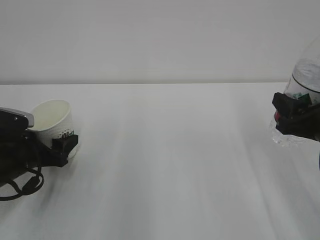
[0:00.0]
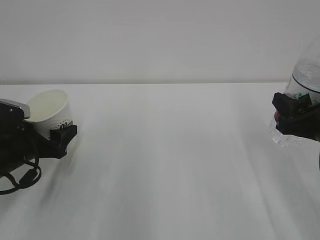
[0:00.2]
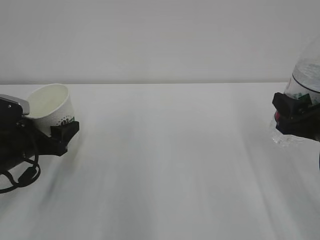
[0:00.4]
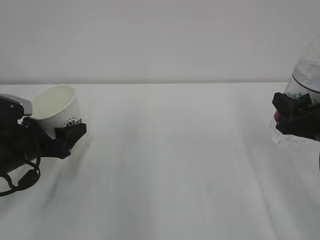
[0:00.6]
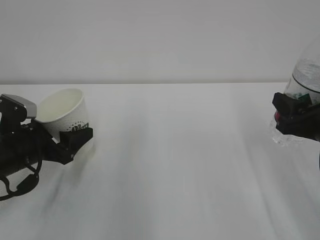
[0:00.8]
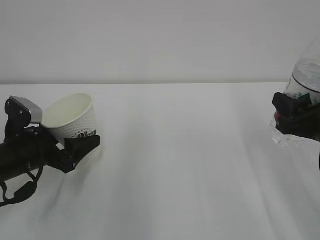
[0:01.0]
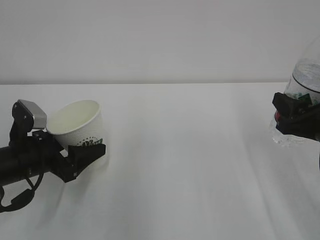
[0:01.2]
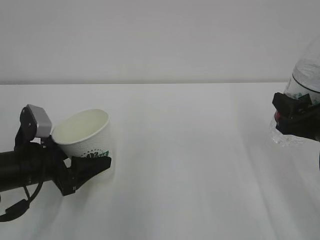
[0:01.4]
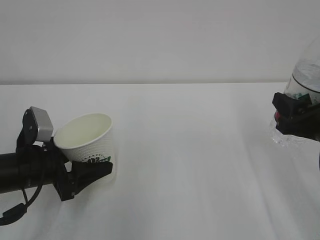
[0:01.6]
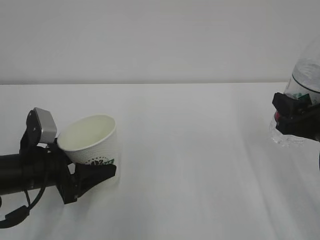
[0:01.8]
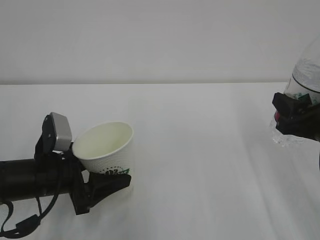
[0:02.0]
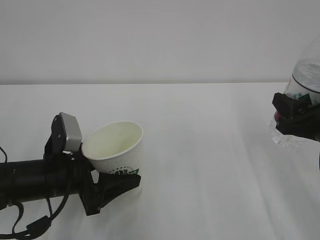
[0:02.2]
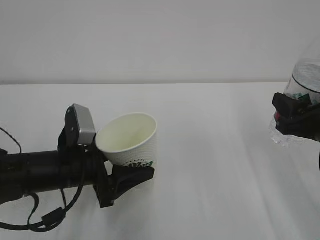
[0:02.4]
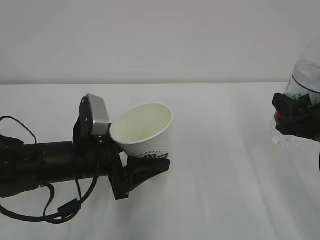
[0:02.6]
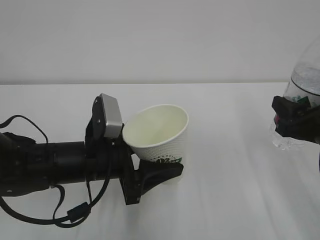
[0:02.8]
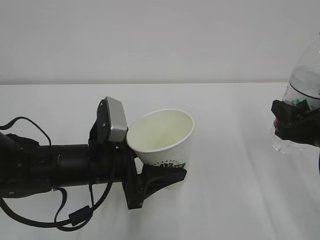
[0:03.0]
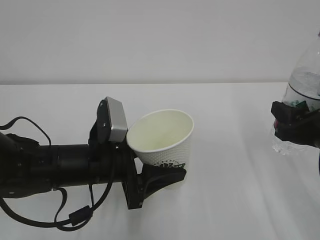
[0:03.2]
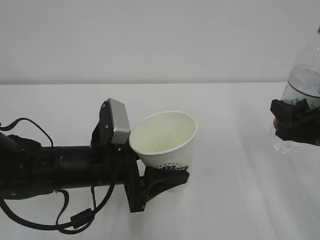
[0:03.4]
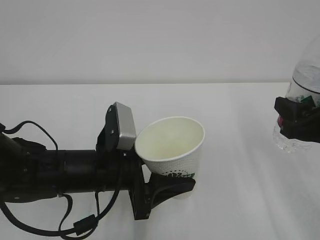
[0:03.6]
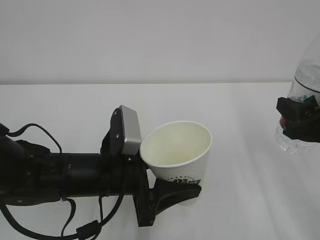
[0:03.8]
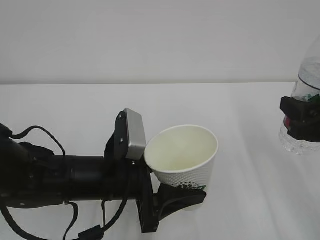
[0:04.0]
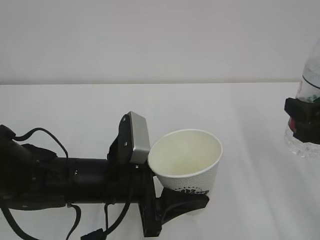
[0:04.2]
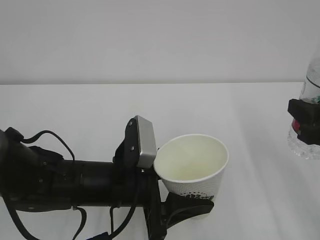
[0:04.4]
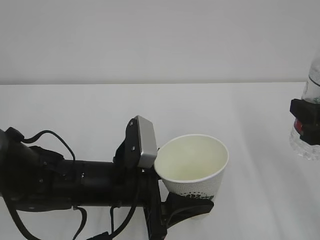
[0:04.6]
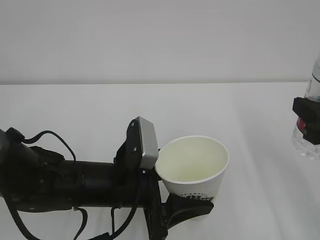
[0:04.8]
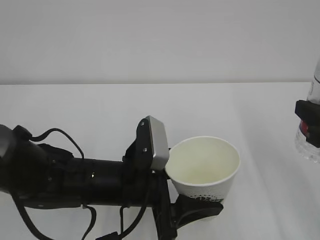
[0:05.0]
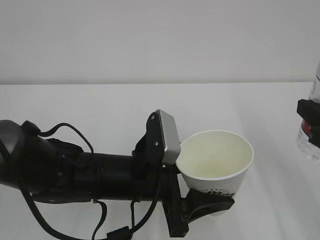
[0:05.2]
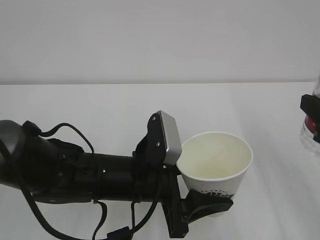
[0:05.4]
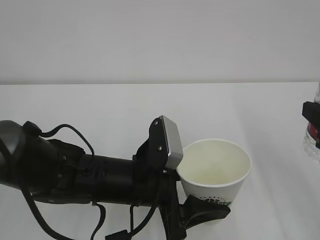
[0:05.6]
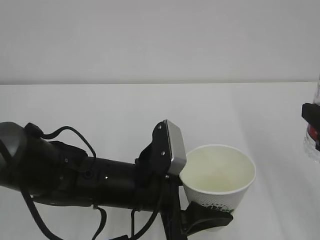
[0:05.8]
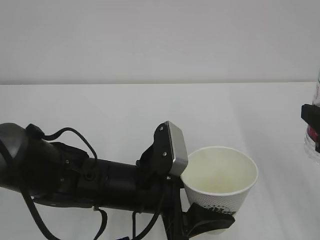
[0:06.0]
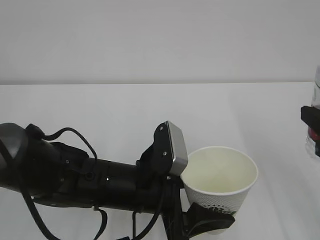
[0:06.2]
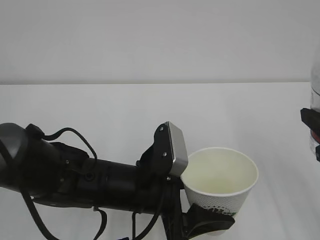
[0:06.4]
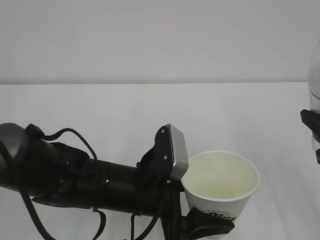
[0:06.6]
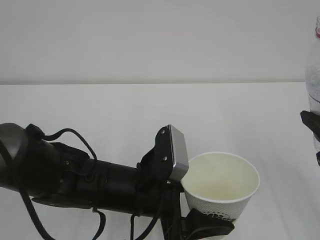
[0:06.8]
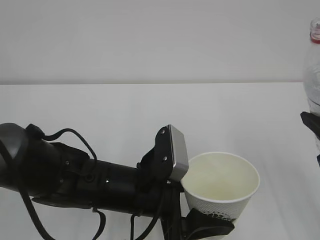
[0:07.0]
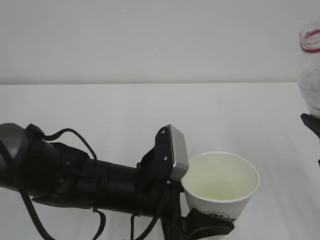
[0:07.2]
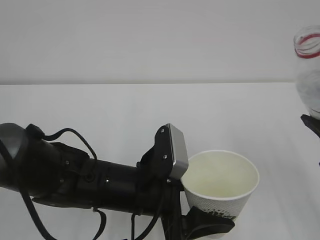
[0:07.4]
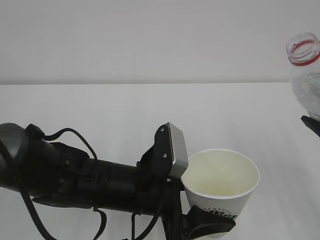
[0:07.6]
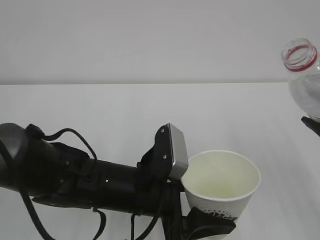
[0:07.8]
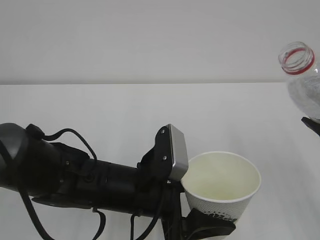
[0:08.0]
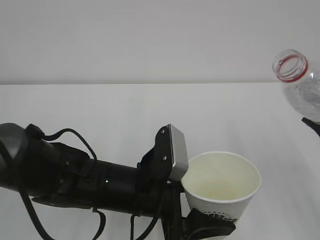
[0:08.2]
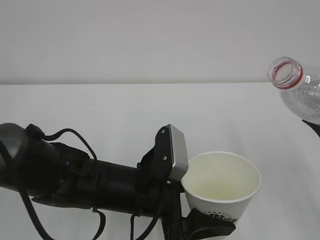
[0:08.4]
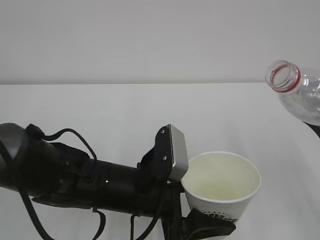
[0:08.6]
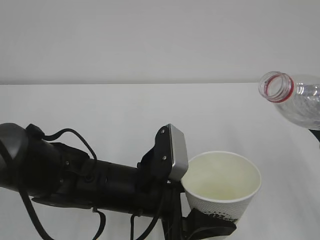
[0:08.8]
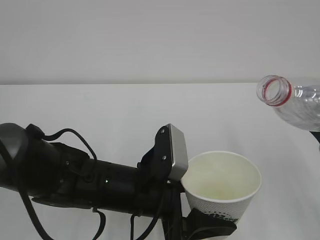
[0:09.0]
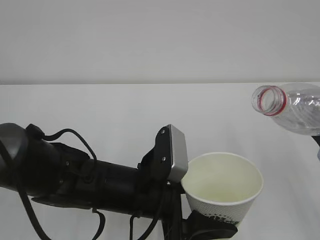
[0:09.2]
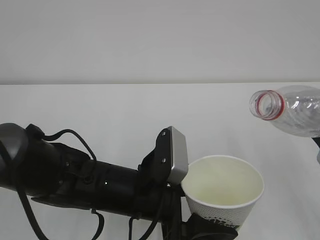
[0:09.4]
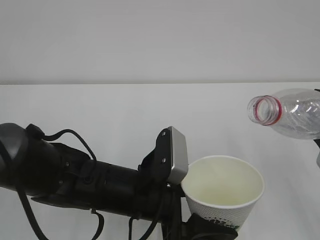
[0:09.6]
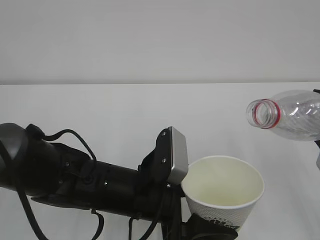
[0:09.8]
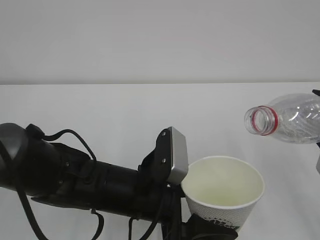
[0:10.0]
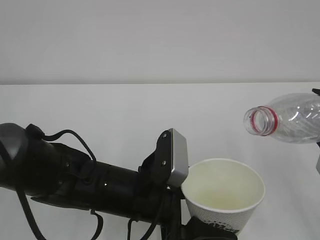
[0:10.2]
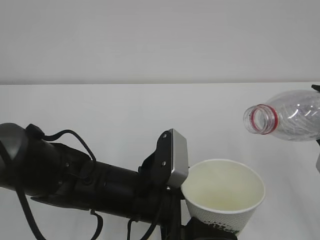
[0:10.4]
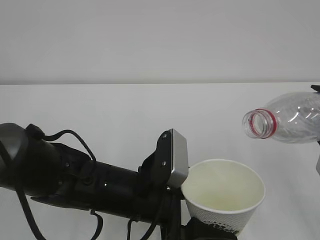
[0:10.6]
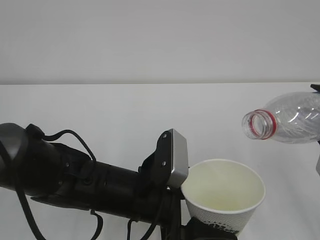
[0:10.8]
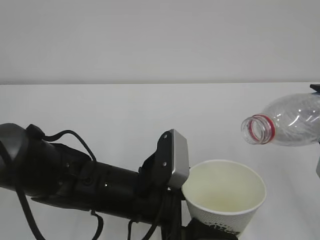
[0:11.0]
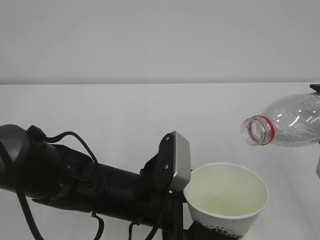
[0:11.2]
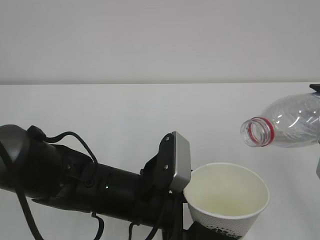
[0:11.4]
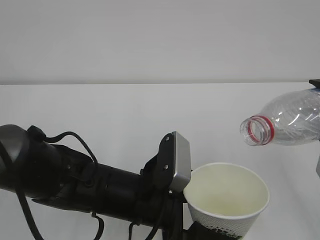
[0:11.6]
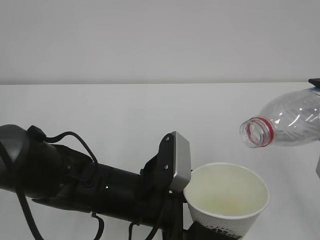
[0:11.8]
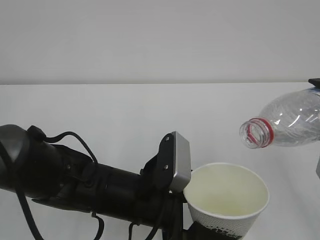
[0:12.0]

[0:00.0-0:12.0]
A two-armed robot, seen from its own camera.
0:00.0 to 0:01.6: The left gripper changes place by some 5 cm.
0:01.6 to 0:03.0: The left gripper moves to the right, approximately 10 cm.
0:03.0 to 0:04.4: The right gripper ends up roughly 5 cm from where it was.
0:04.4 to 0:06.0: The grippers make only small movements.
0:09.0 to 0:10.4: The grippers move only a little.
0:10.4 to 0:12.0: The grippers stay close to where they were, moving slightly.

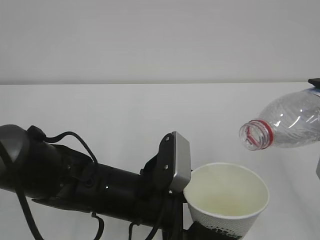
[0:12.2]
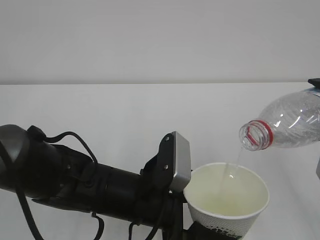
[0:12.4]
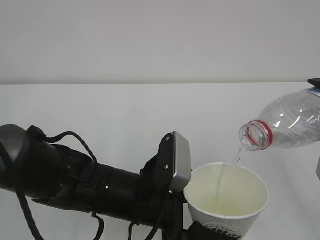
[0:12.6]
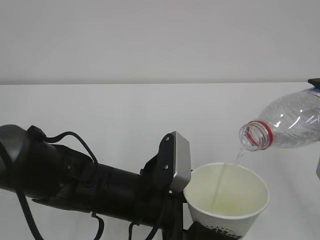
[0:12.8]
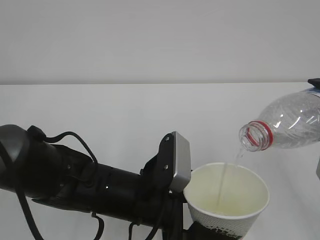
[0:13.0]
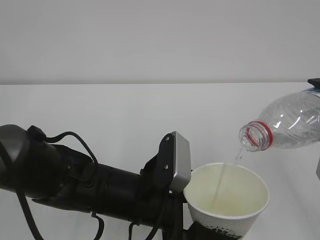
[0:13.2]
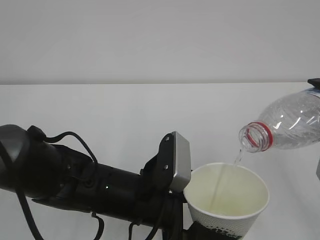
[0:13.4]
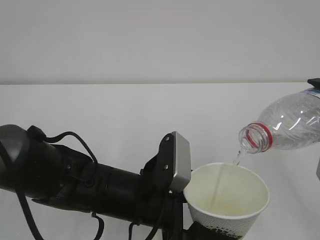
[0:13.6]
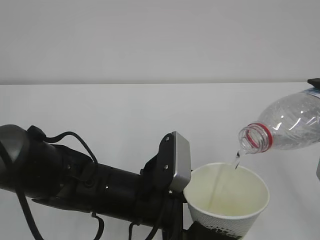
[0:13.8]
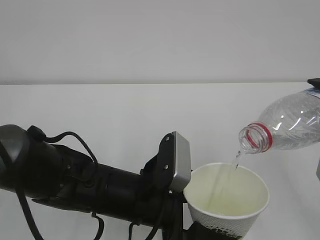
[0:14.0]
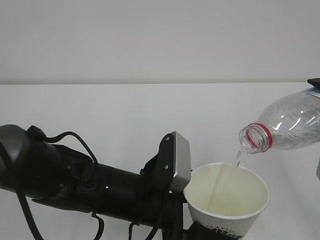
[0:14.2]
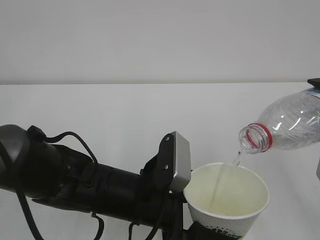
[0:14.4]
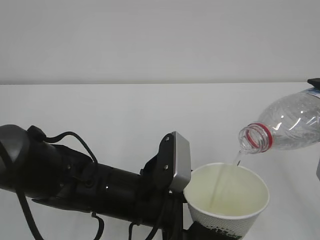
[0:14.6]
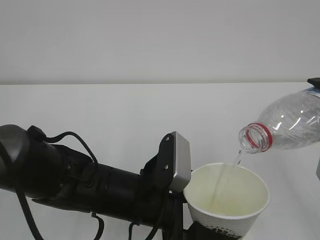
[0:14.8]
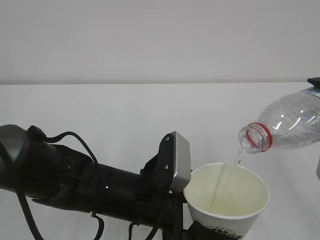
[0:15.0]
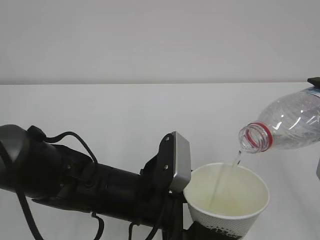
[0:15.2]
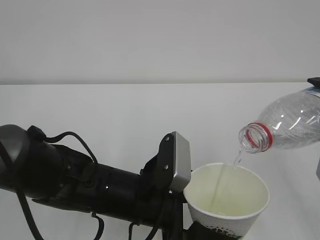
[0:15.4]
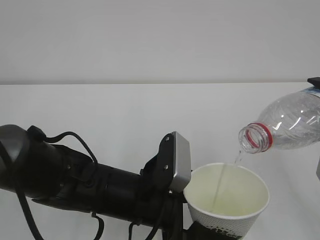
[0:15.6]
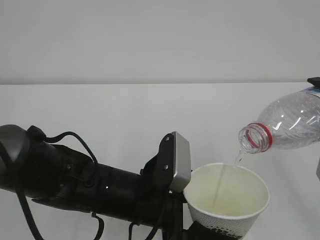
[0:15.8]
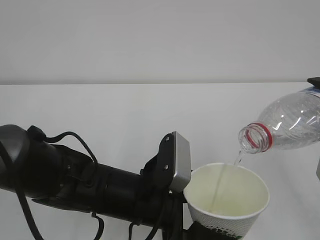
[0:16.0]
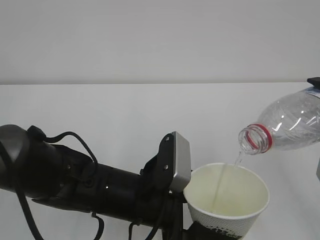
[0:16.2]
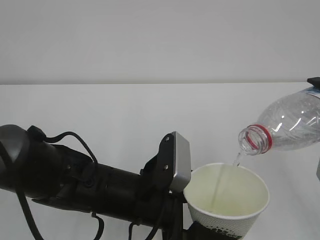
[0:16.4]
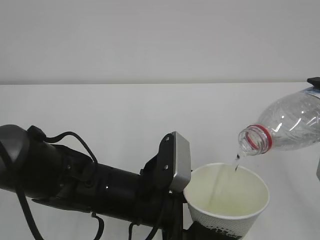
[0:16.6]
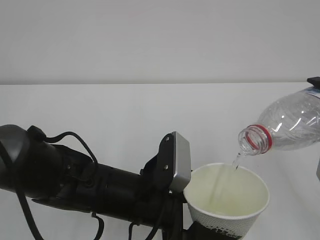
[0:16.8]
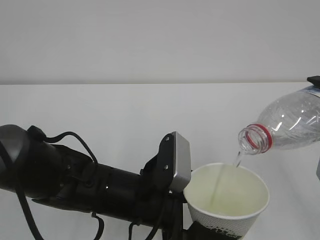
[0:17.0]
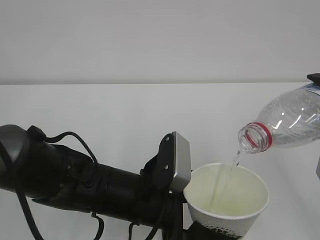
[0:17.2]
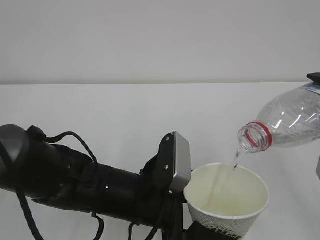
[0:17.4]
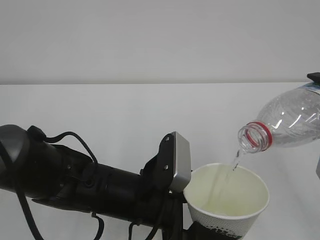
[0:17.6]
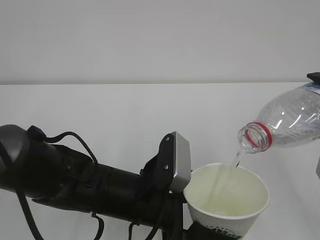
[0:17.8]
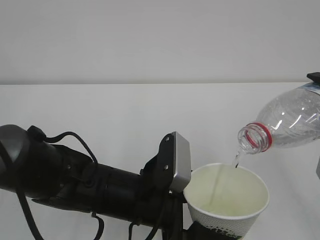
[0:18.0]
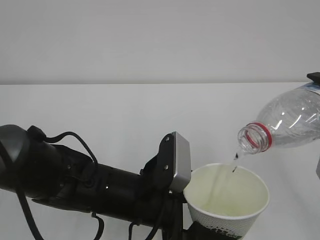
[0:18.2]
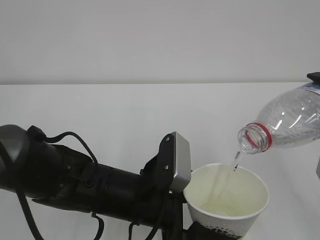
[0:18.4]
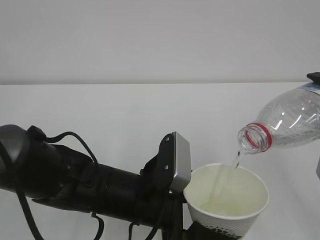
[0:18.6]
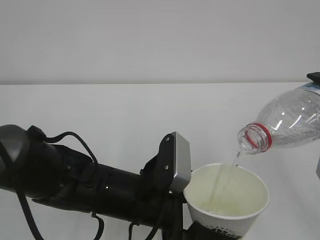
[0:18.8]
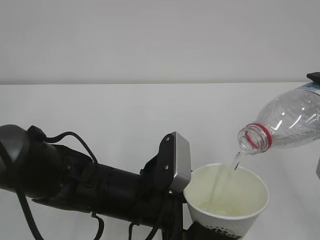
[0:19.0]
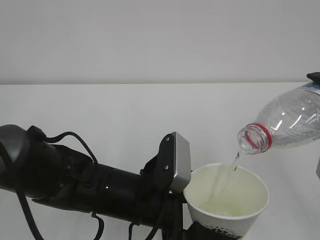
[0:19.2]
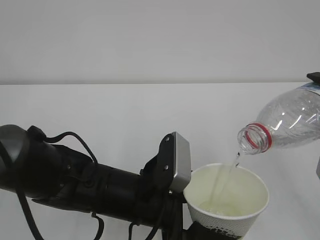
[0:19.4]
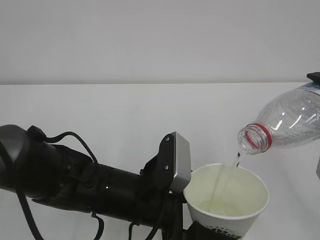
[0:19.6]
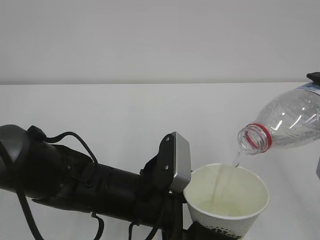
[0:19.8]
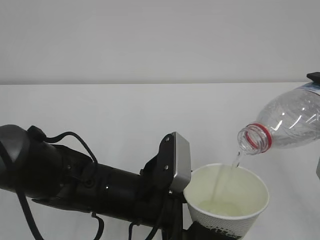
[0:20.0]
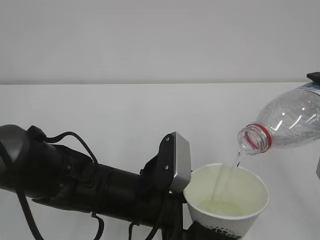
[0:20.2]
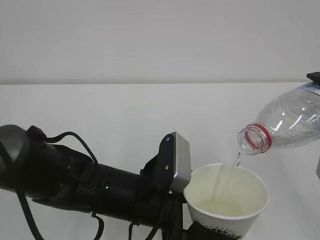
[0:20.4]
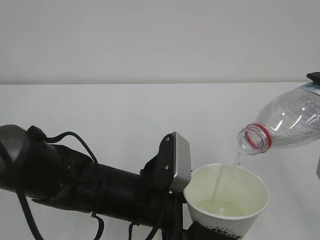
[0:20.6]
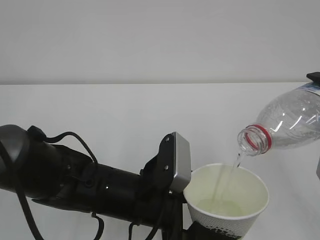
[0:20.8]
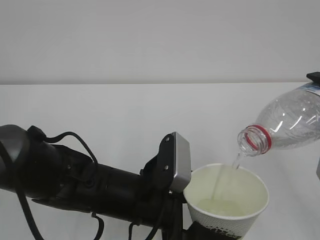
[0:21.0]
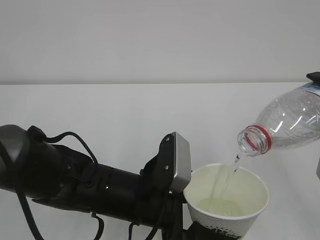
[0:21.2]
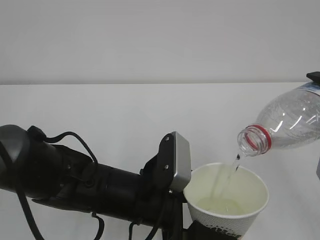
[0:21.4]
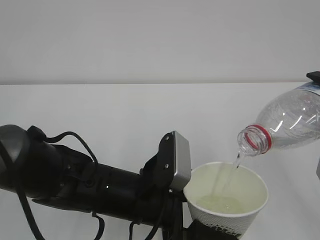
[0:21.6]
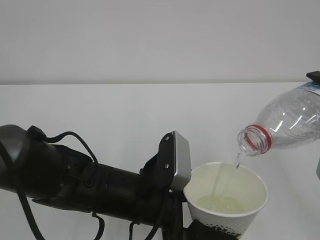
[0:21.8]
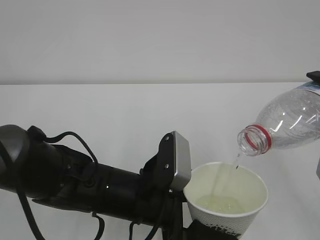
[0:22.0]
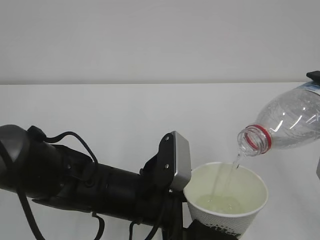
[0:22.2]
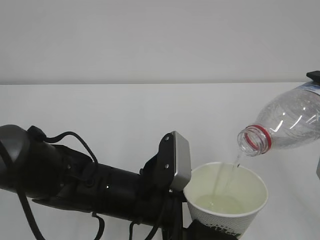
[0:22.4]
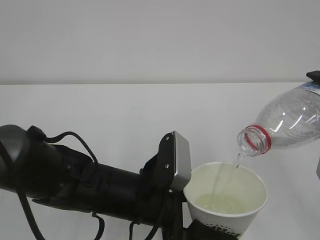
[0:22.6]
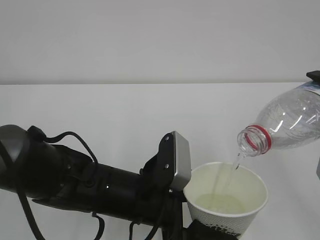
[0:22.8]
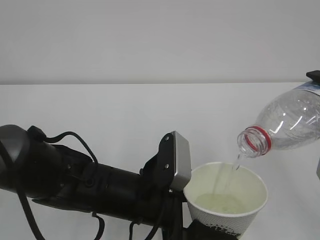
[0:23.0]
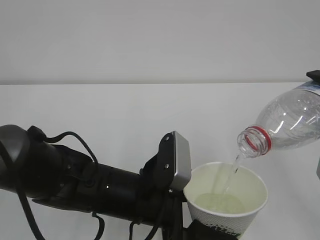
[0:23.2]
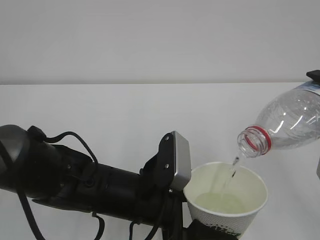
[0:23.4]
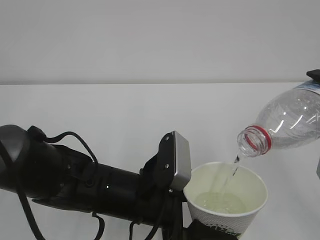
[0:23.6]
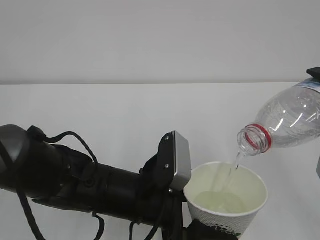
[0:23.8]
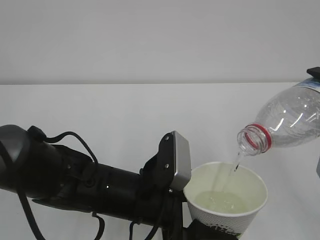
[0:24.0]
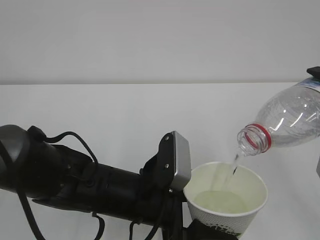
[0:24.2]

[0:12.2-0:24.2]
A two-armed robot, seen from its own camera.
0:12.2 to 0:19.8: Neither gripper changes place.
0:19.8 to 0:24.2: The two grippers keep their place.
